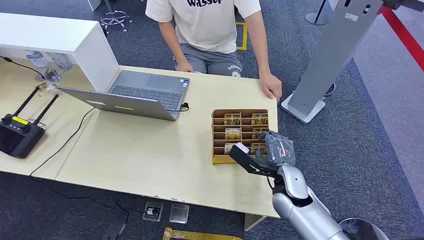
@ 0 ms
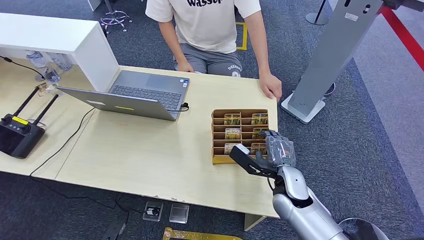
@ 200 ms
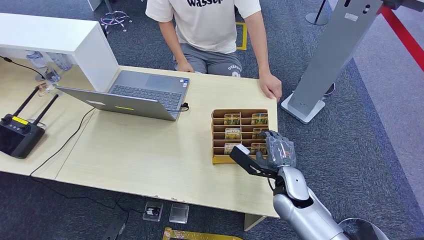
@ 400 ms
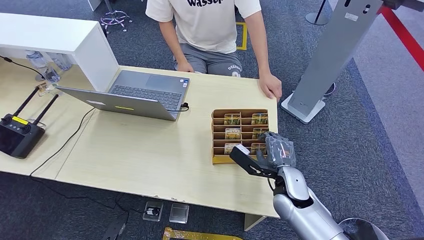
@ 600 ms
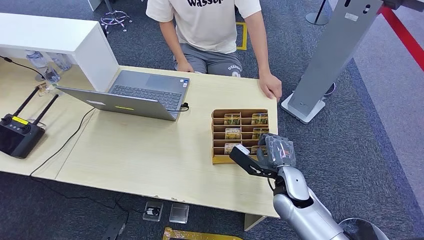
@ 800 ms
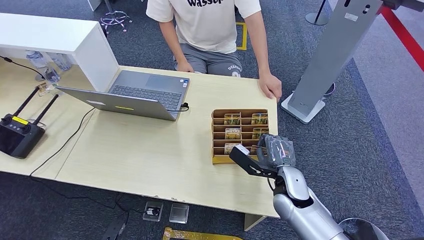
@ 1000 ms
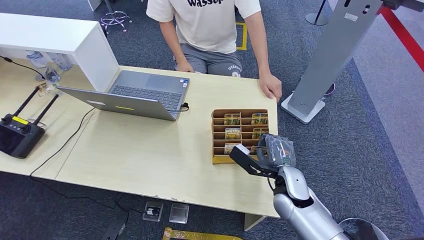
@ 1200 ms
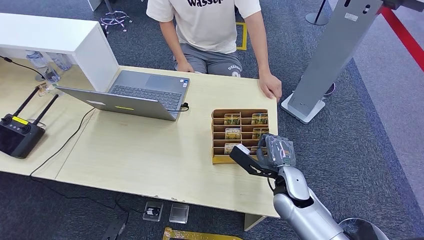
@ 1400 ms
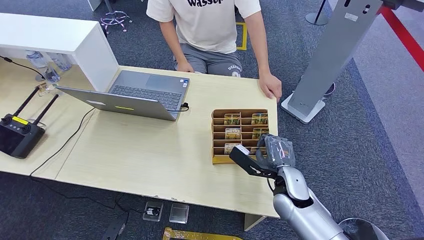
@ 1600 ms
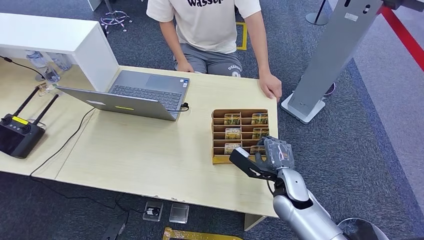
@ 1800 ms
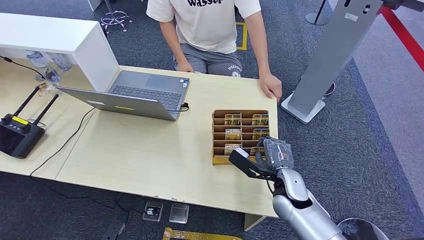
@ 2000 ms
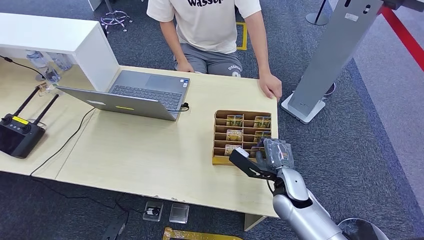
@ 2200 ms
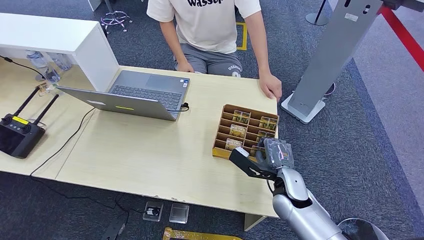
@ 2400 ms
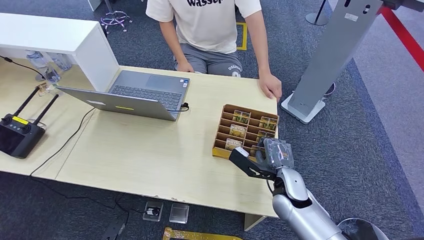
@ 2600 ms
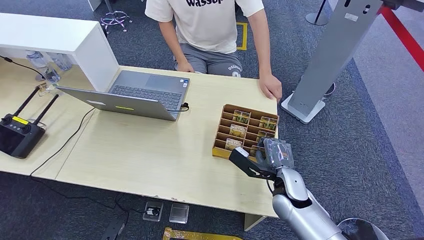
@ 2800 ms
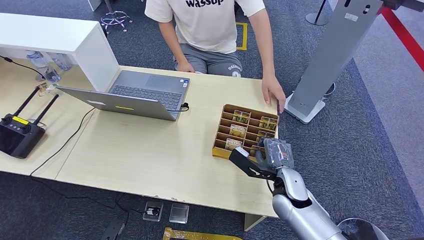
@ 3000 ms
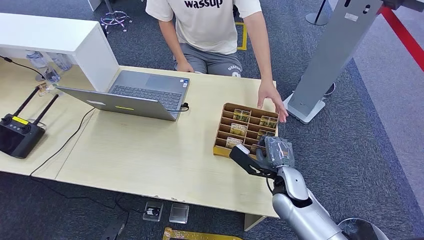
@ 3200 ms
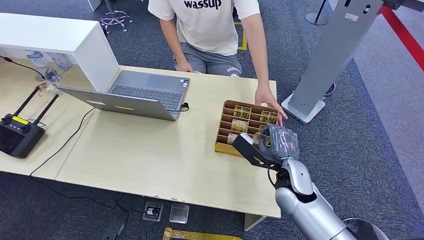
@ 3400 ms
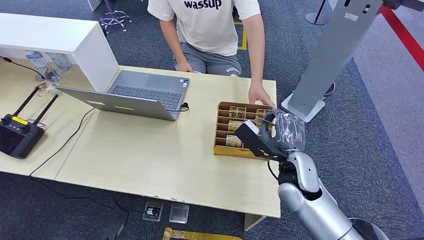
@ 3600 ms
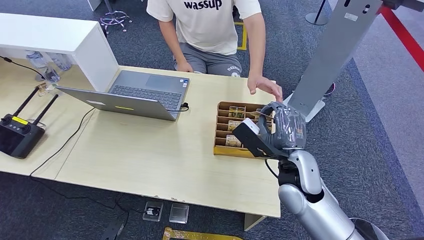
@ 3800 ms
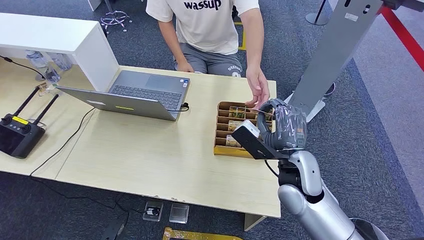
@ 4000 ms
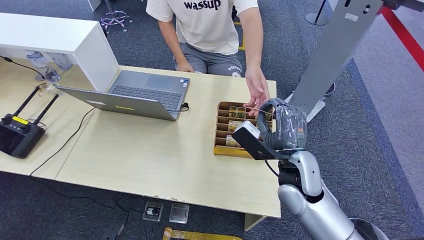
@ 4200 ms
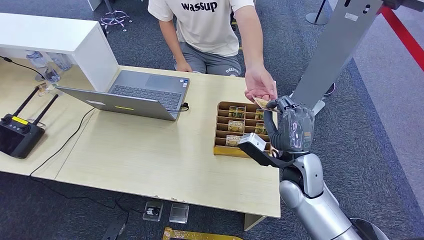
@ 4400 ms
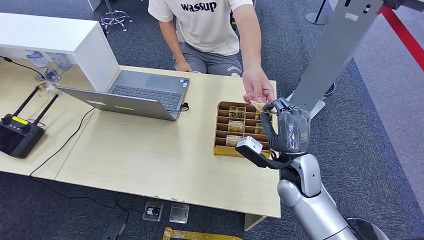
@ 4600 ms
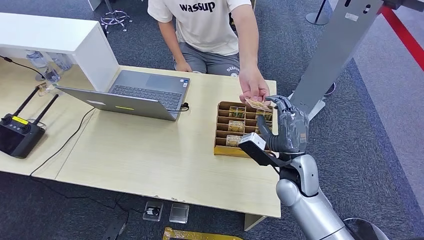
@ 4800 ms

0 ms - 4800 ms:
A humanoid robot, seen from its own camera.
Task of the whole recording: Pick up the card and hand it over to the target person.
Step, 0 ms - 3400 ms: Pick up the key card from the card box.
Step, 3800 ms - 4800 ms: Hand the key card to the target.
1600 ms - 3200 ms: The right hand shifts approximately 10 cm upward.
3200 ms - 4800 ms: The right hand reaches about 5 cm upward, then returns.

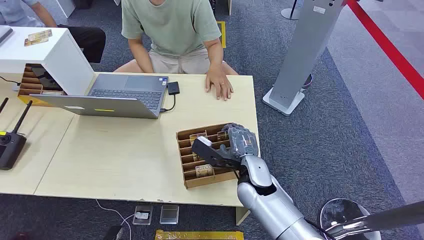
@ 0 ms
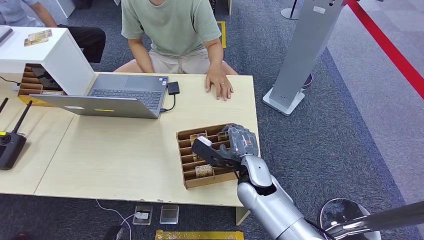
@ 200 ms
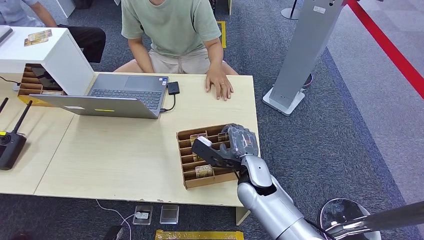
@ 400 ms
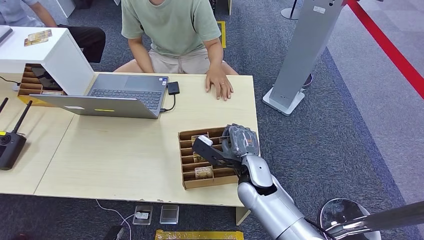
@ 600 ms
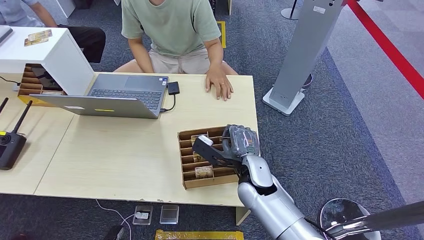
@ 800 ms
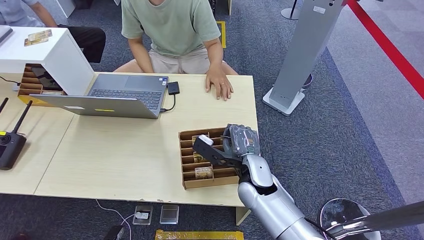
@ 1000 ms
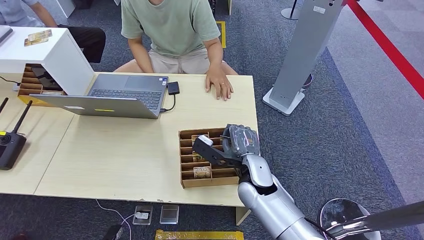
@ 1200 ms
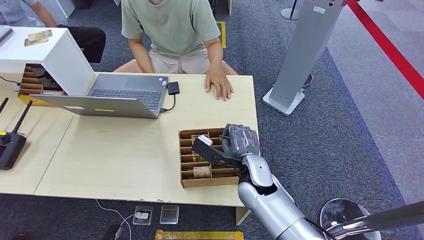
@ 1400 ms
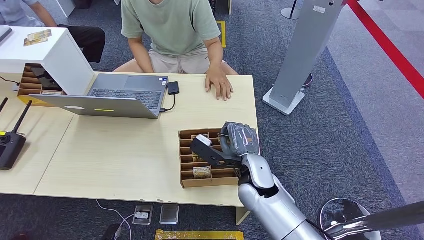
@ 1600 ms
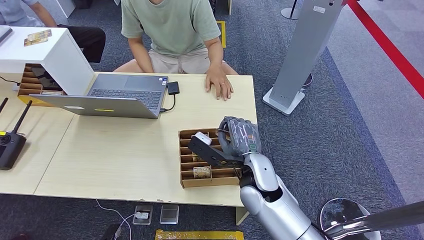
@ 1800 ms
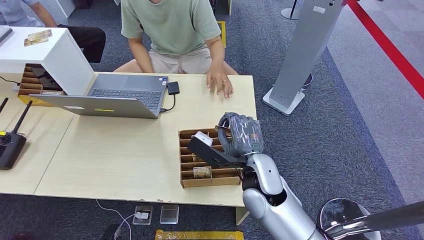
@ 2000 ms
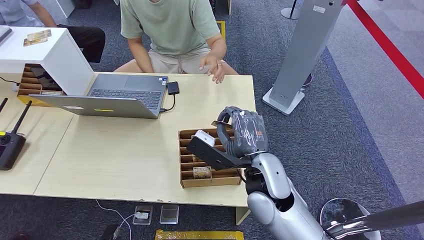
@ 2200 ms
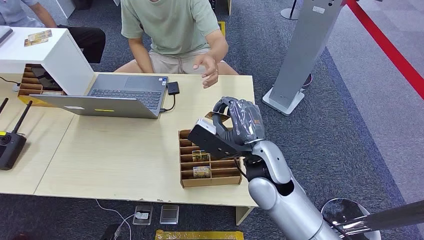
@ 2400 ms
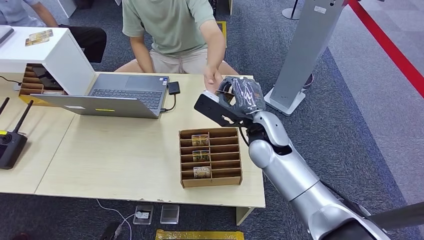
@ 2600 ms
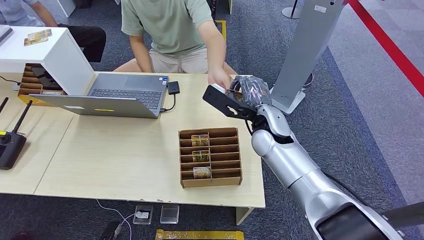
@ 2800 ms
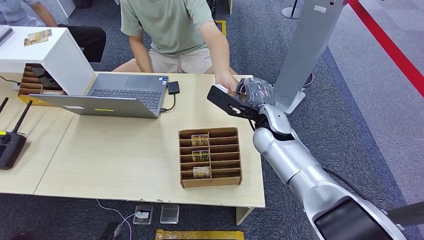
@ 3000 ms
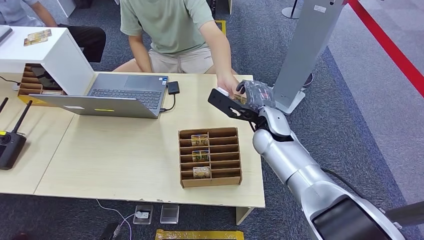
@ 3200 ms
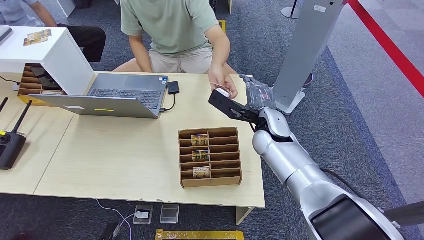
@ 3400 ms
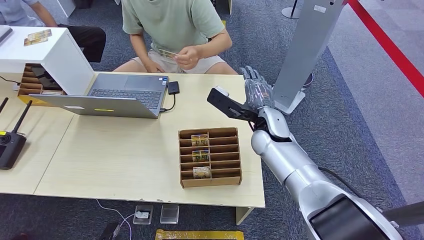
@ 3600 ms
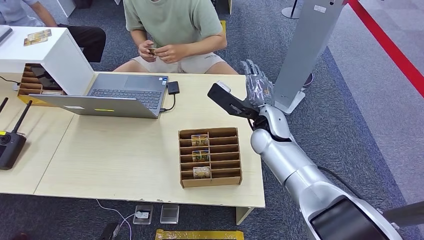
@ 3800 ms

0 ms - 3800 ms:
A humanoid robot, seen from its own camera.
Task of the whole recording: Pick up the card and hand it over to the target person.
Step, 0 ms - 1800 ms: Pick up the key card from the card box.
Step, 2600 ms - 3800 ms: Hand the key card to the target.
1200 ms - 2600 ms: The right hand moves forward and upward, some 15 cm.
